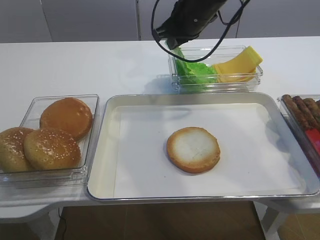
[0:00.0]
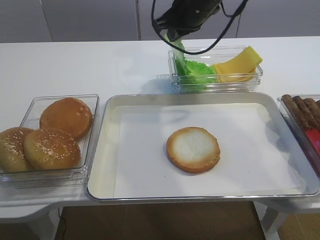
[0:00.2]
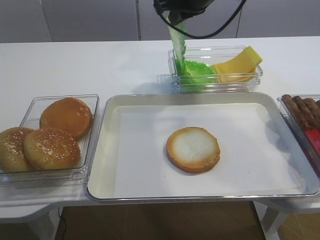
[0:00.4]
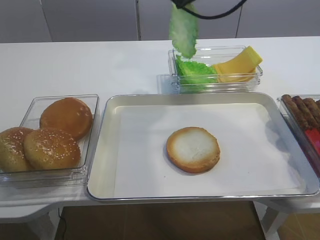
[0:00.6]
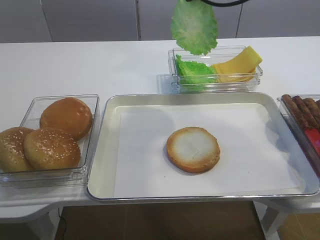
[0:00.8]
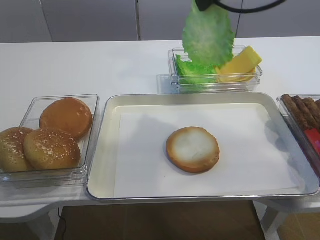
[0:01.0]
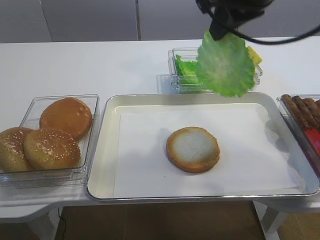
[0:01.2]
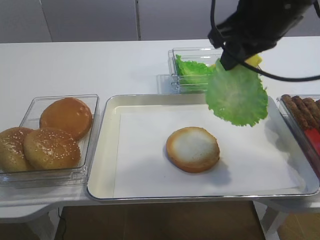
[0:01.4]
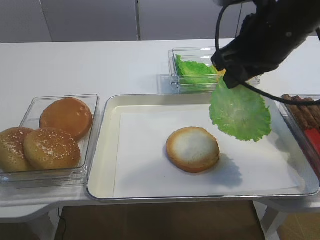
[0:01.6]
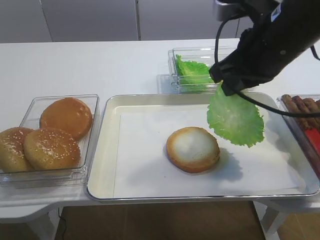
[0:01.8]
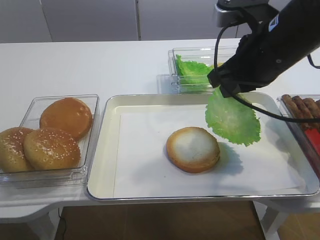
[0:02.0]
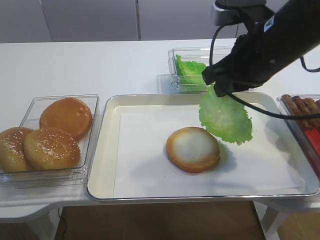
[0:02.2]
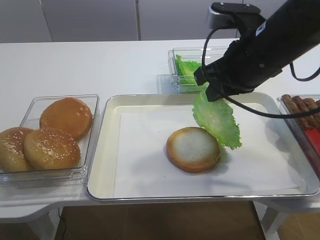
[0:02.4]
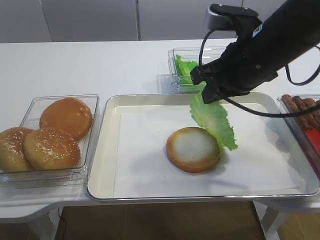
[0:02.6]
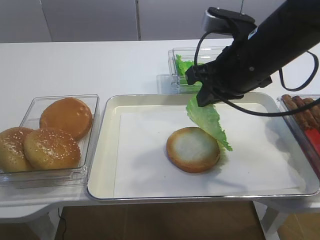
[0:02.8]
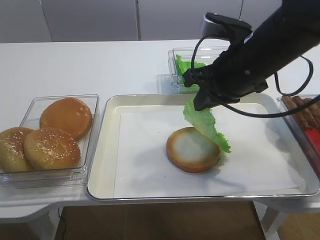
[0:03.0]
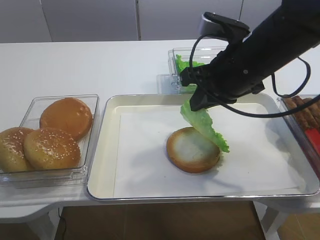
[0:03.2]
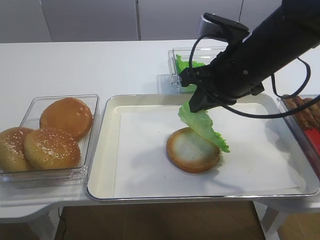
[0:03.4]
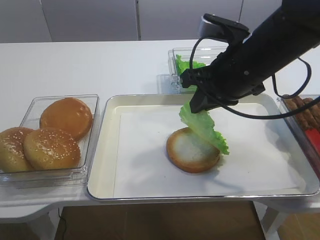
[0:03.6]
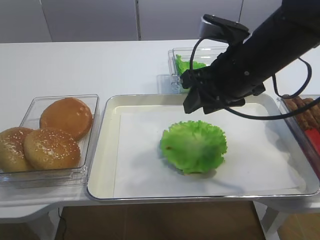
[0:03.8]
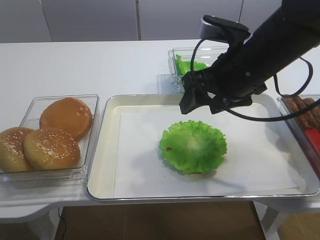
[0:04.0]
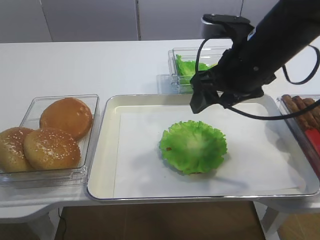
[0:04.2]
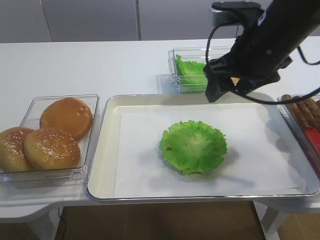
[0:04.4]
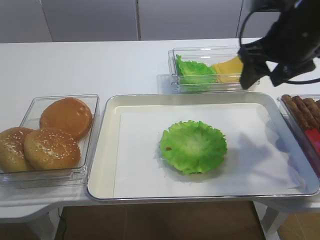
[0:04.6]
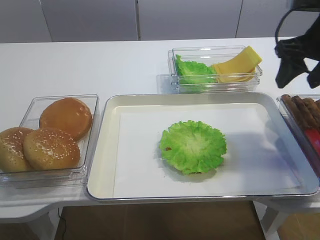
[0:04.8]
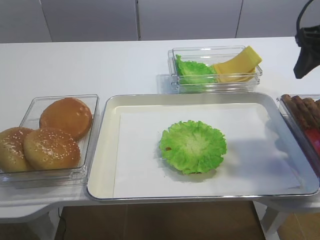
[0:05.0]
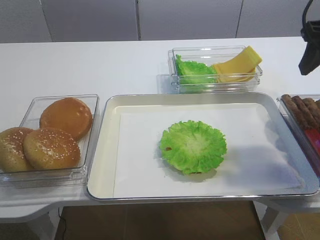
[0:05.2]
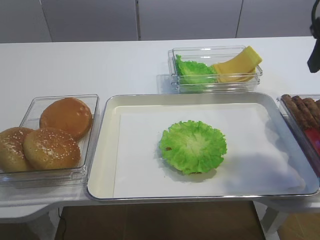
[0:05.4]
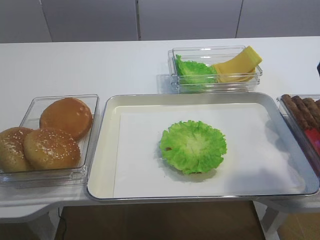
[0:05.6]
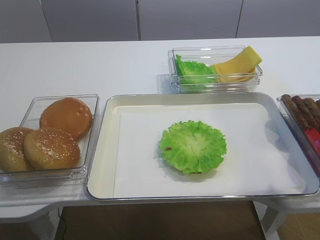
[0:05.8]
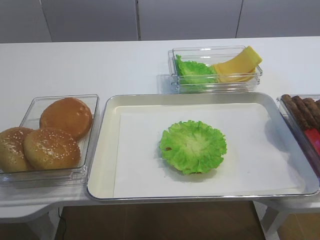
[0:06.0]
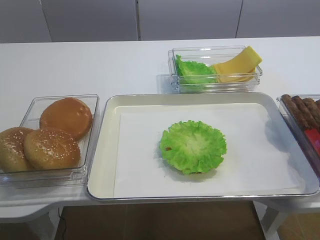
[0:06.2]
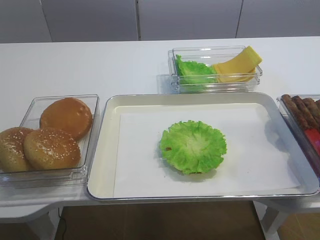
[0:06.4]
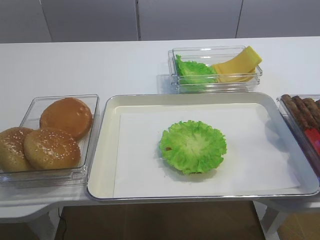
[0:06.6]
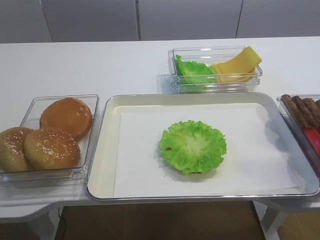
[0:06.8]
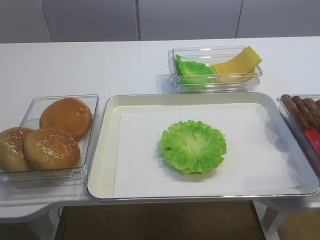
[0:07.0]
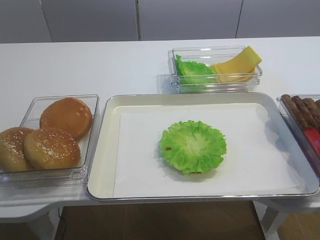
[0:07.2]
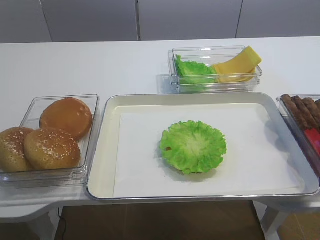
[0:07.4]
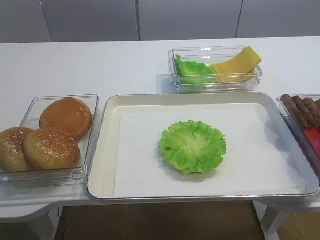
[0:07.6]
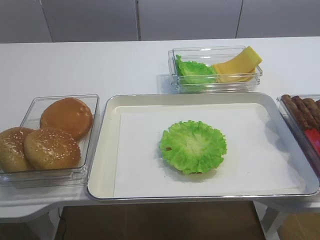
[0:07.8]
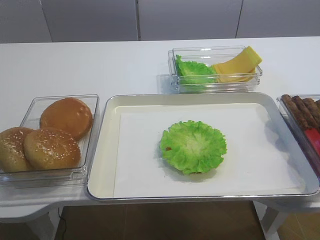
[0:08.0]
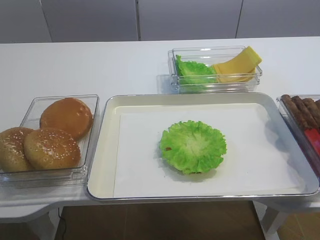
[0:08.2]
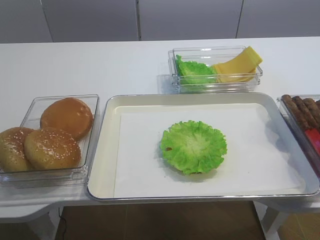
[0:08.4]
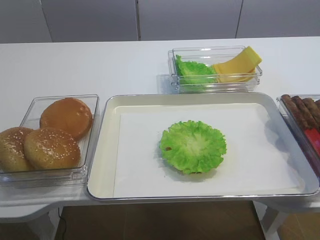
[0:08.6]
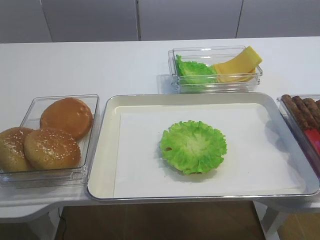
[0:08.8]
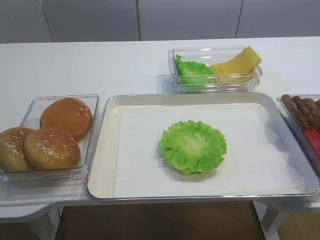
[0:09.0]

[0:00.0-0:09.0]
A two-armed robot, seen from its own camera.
Step, 0:00.4 to 0:04.0: Place the lettuce leaf on the bread slice with the right gripper.
0:00.0 to 0:01.6: The right gripper shifts some 20 cm backward and to the right.
0:01.6 to 0:03.0: The right gripper heads downward, covering approximately 5 cm.
0:03.0 to 0:04.4: The right gripper opens.
0:04.4 to 0:06.0: The right gripper travels to the right, backward and upward by some 15 cm.
0:06.0 to 0:07.6: The right gripper goes some 20 cm backward.
0:07.6 to 0:09.0: Both grippers stay put.
